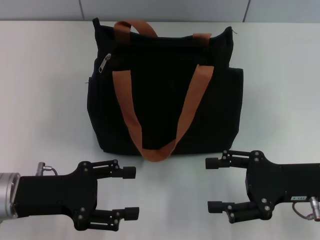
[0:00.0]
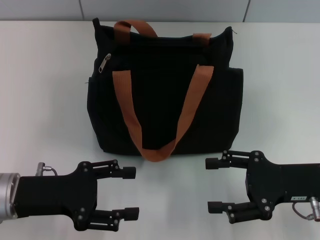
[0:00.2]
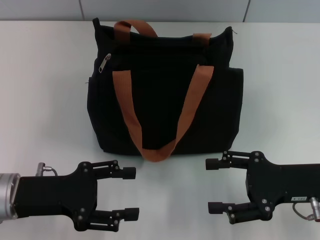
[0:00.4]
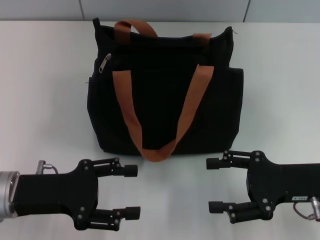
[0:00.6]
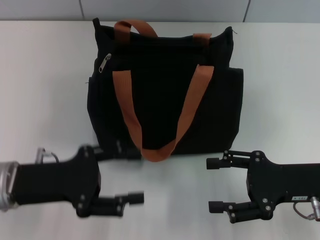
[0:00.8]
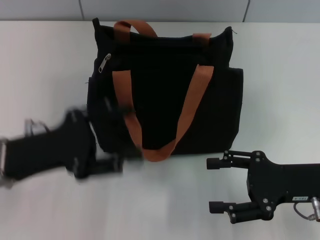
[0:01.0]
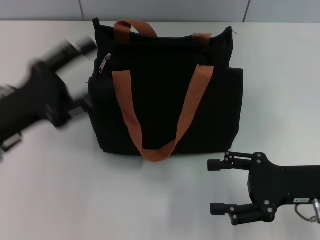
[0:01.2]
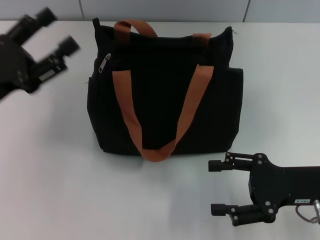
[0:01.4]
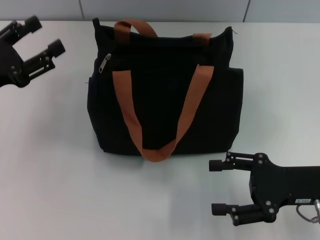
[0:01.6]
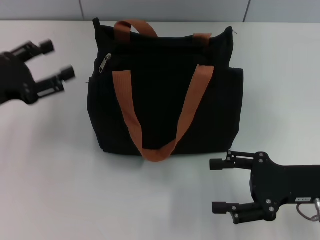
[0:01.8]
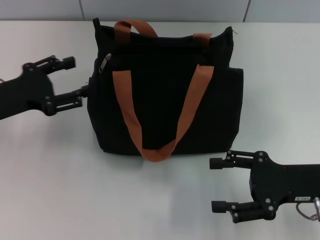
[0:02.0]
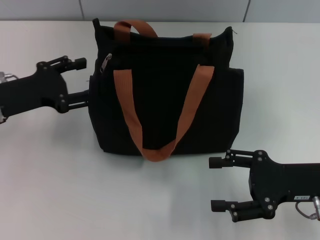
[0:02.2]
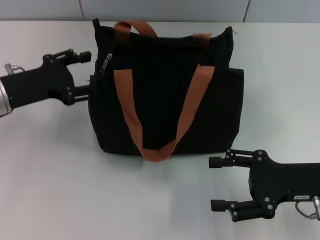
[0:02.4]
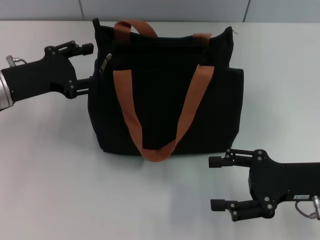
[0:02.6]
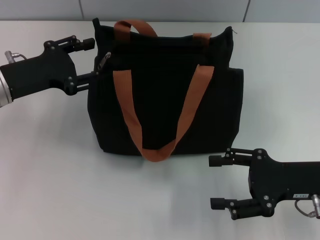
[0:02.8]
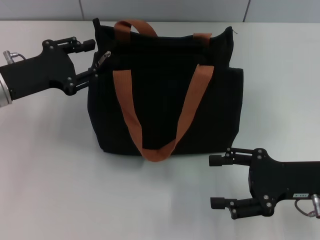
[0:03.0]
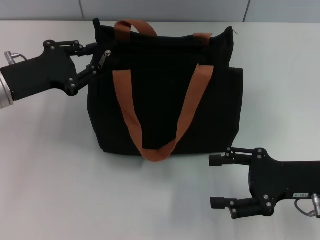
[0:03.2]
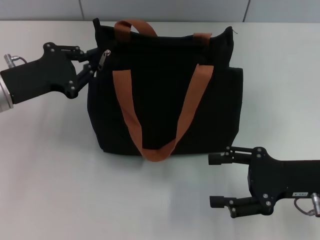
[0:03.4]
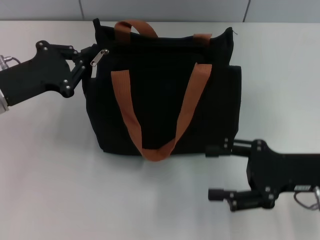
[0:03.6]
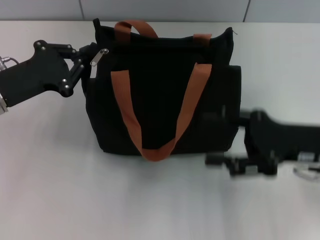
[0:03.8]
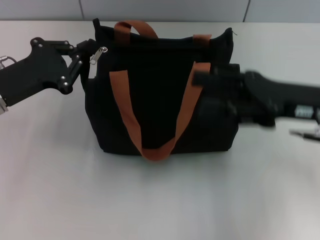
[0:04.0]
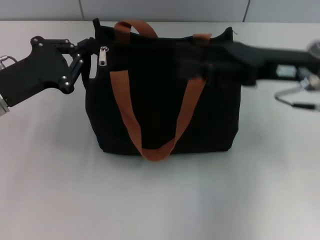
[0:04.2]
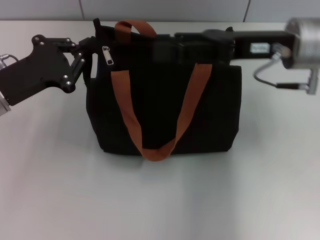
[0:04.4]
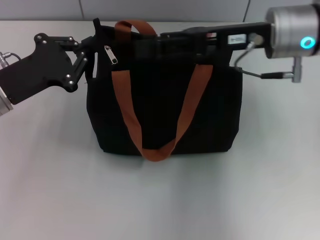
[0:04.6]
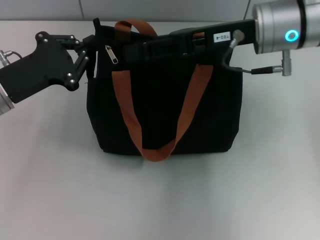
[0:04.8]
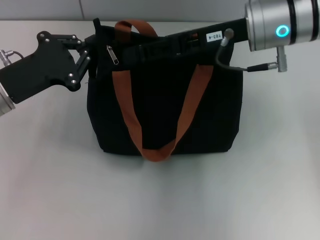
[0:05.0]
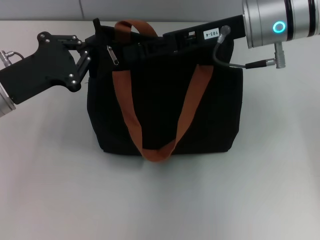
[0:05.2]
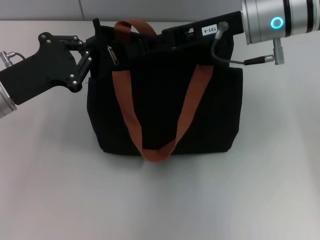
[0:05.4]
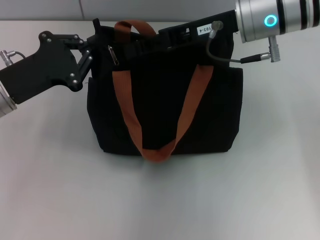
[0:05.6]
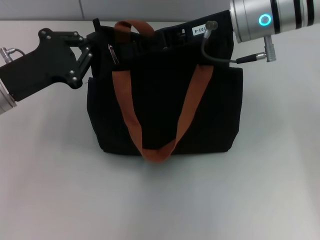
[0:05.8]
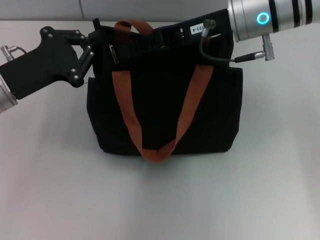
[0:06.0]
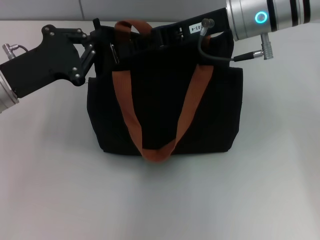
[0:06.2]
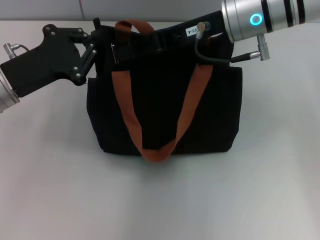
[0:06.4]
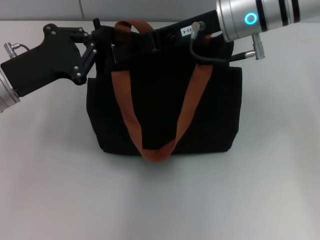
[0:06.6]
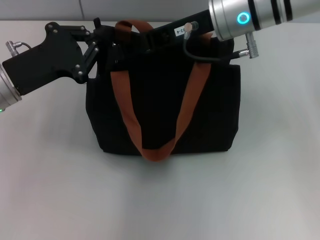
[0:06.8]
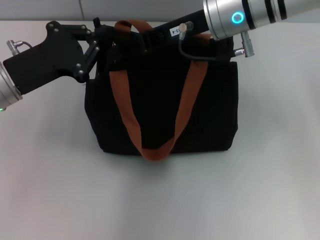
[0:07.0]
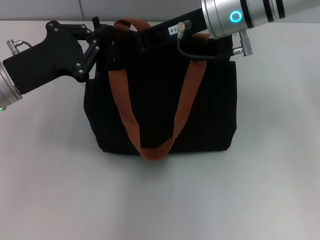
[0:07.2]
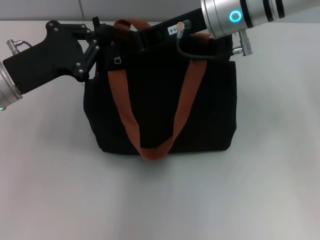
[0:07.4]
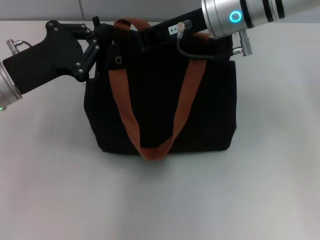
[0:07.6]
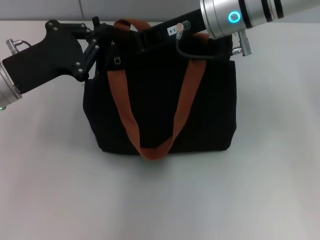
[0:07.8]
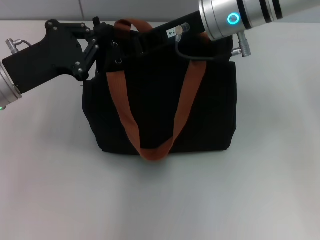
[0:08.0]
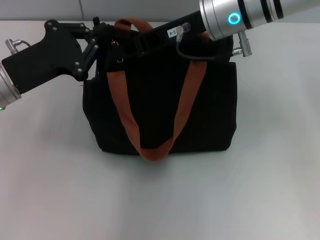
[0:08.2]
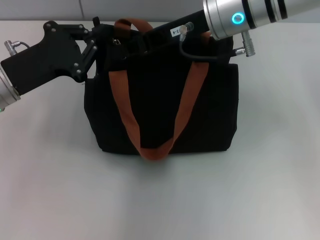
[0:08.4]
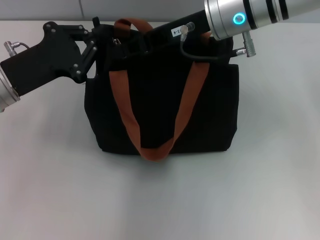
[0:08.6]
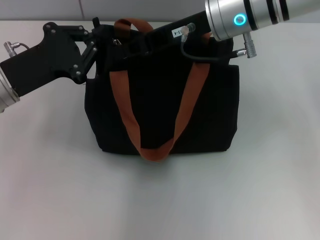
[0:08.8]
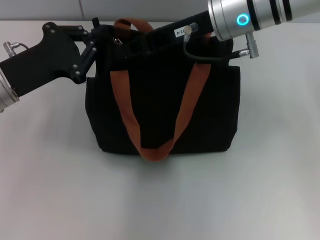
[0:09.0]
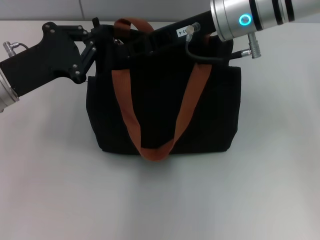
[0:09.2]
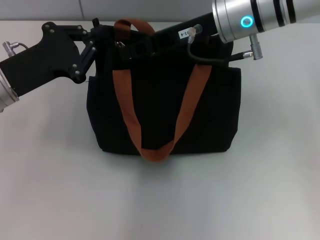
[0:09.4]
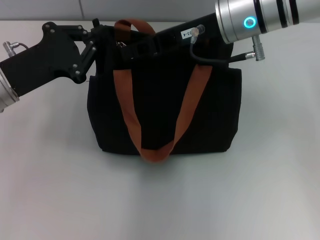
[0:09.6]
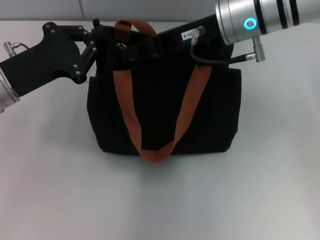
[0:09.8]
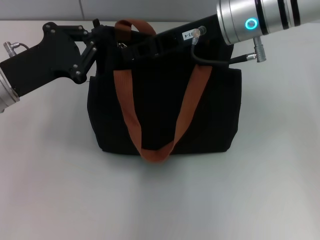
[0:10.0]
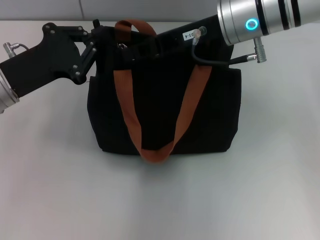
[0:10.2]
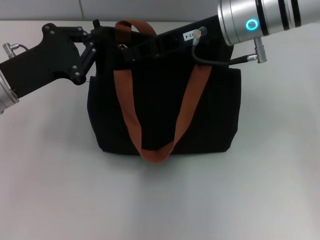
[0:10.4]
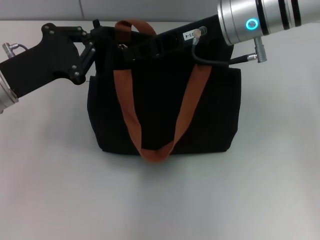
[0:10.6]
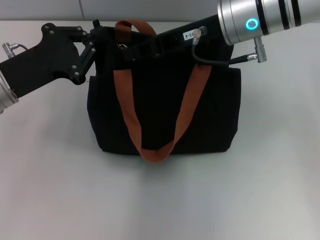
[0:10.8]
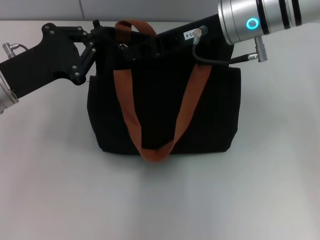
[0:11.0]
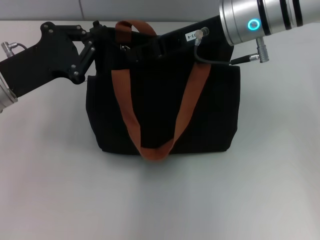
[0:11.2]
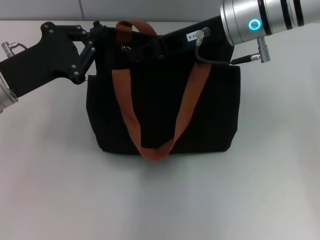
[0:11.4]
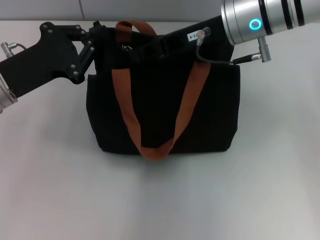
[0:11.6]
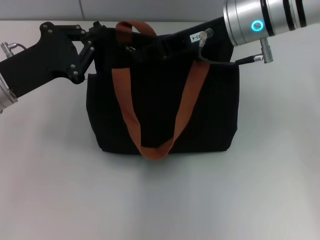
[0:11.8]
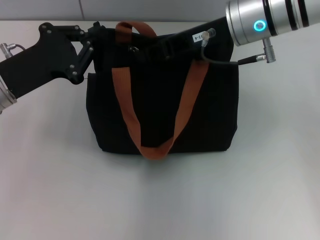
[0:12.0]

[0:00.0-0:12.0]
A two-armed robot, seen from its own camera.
0:00.0 to 0:01.6: The left gripper moves to the left and forward, approximately 10 cm.
0:01.6 to 0:03.0: The left gripper moves some 5 cm.
0:03.0 to 0:04.4: The right gripper is displaced upward, forward and to the left by some 20 cm, while the left gripper closes.
0:04.4 to 0:06.0: The right gripper moves to the left, approximately 5 cm, and closes its fingers.
0:06.0 to 0:07.6: The grippers make only small movements.
0:07.6 to 0:09.0: The two grippers keep their place.
0:09.0 to 0:10.4: Both grippers stay about where they are.
0:10.4 to 0:12.0: Both grippers stay about where they are.

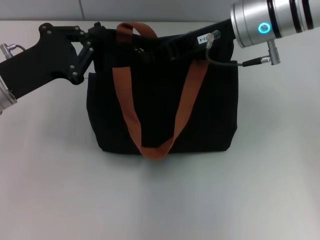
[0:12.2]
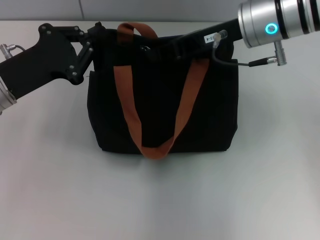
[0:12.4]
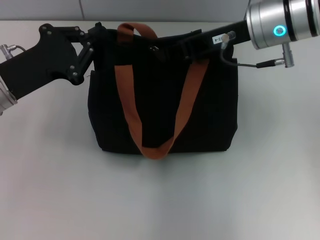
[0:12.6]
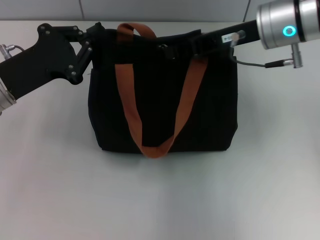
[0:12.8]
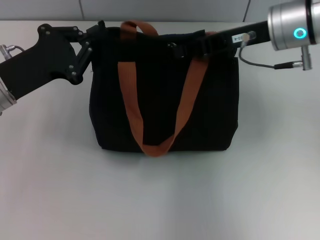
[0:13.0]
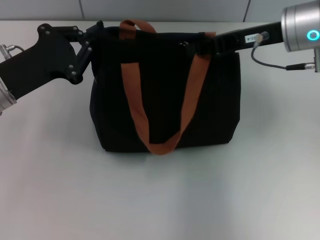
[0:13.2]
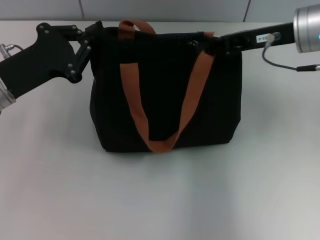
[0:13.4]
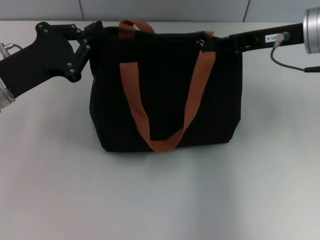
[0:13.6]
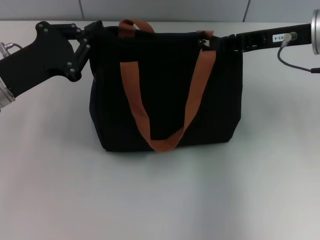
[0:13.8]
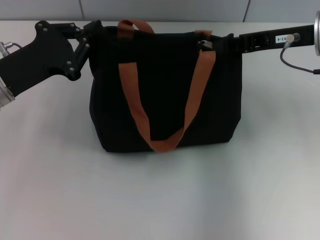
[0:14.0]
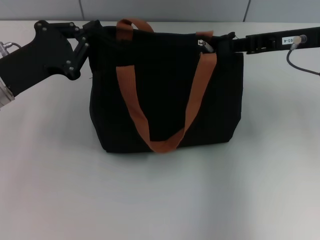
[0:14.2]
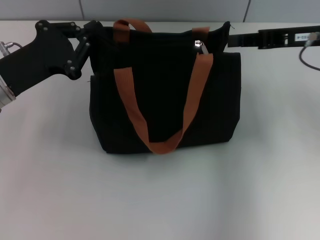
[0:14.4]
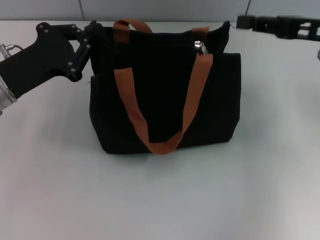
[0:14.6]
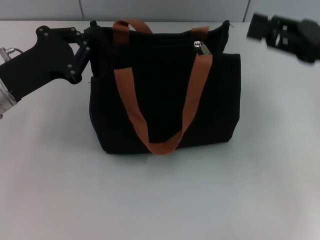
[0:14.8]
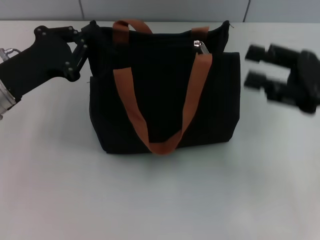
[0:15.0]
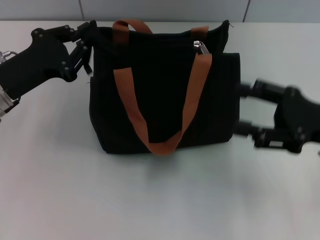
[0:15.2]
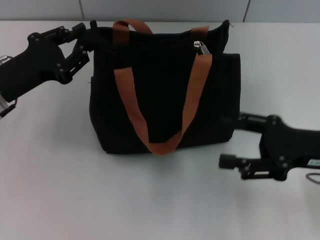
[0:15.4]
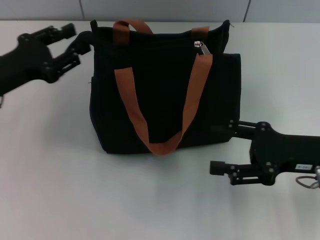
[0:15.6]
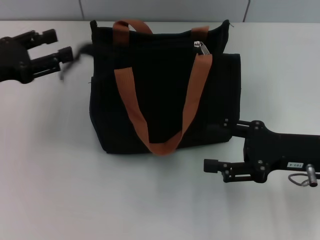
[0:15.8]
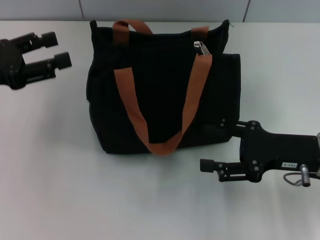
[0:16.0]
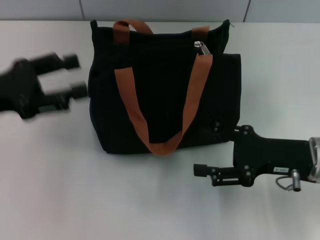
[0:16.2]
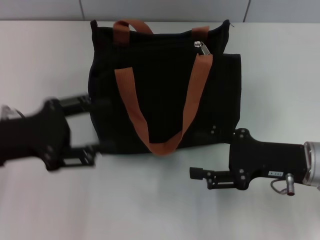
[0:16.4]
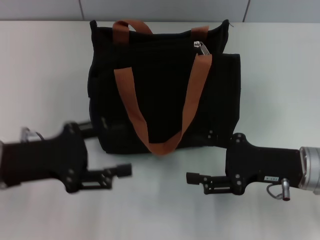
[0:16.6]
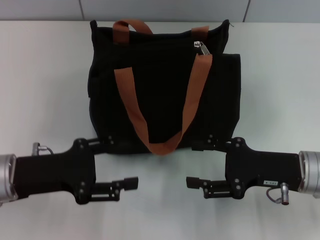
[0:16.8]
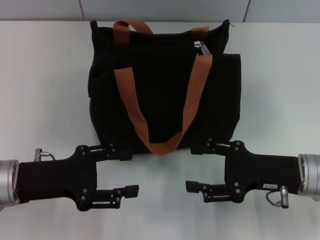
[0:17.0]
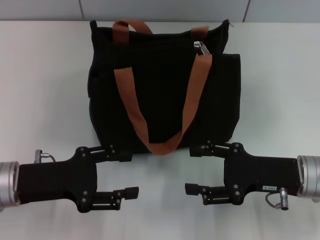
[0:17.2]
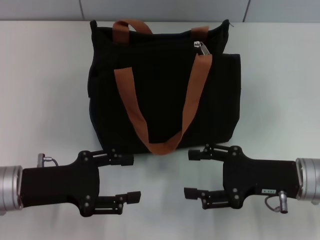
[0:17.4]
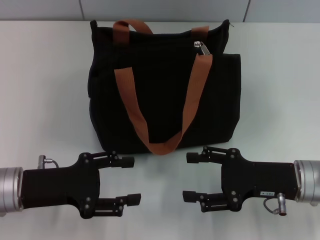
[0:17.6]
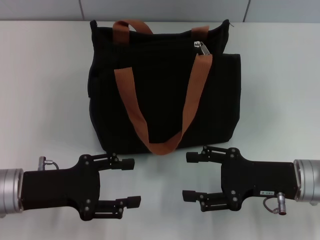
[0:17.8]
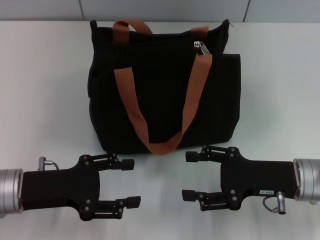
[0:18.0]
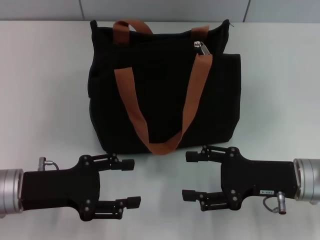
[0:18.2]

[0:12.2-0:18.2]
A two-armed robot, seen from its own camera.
Step, 0:14.4 to 0:15.8: Grab the zipper with your left hand.
0:12.2 to 0:13.8: The right gripper moves to the right, about 10 cm.
0:13.8 to 0:15.2: The right gripper heads backward and downward, covering some 15 cm, and opens up.
0:15.2 to 0:16.6: The right gripper moves downward, approximately 5 cm. Meanwhile the left gripper goes roughly 5 cm backward, and opens its fingers.
0:16.6 to 0:18.2: The grippers stay close to where they were, moving slightly.

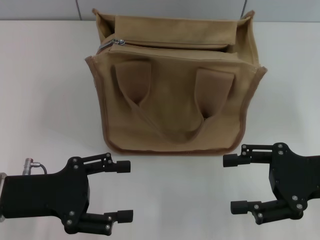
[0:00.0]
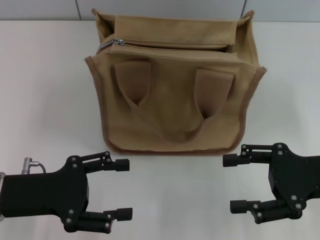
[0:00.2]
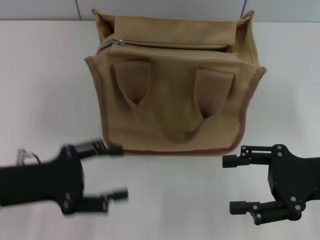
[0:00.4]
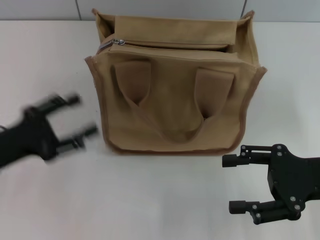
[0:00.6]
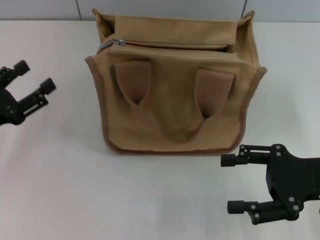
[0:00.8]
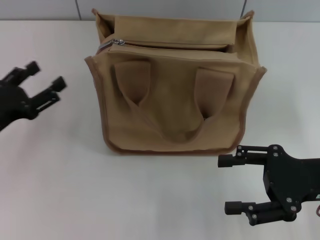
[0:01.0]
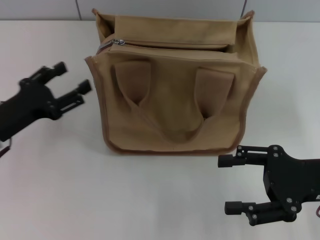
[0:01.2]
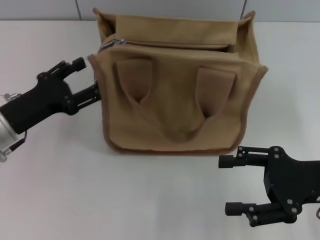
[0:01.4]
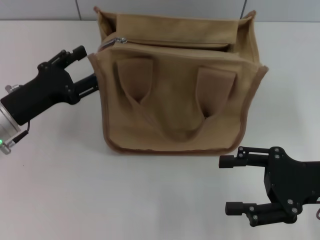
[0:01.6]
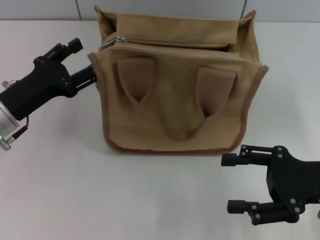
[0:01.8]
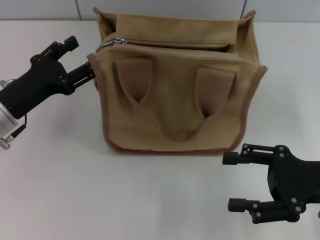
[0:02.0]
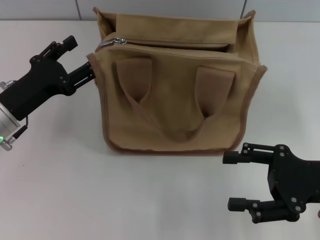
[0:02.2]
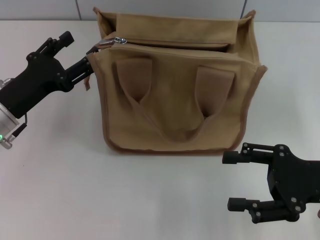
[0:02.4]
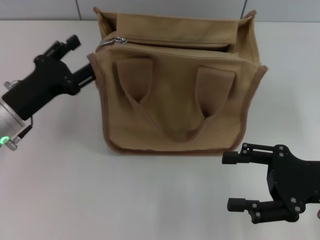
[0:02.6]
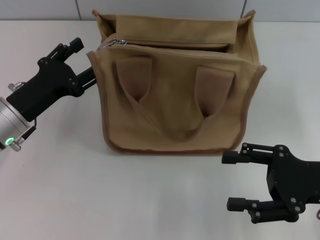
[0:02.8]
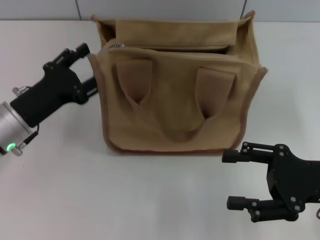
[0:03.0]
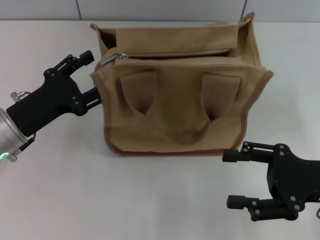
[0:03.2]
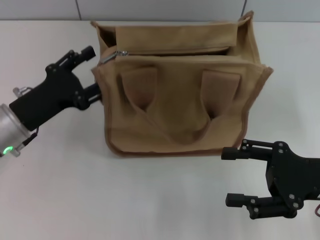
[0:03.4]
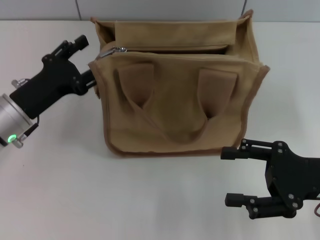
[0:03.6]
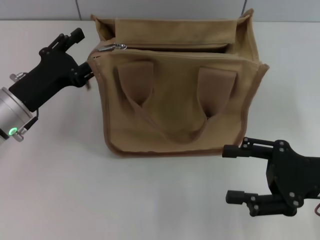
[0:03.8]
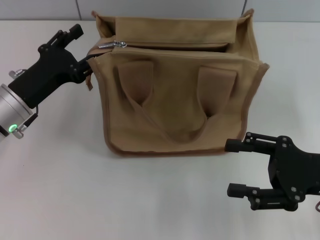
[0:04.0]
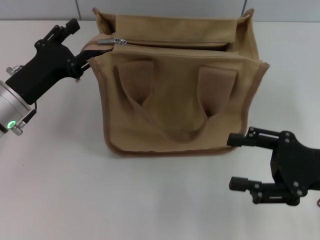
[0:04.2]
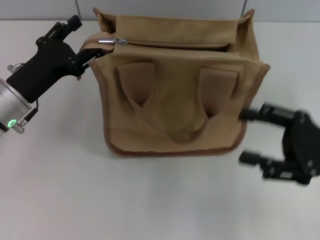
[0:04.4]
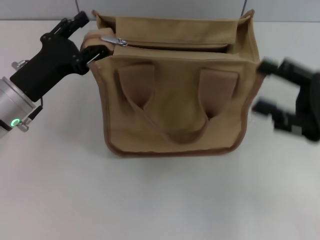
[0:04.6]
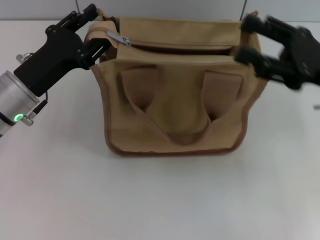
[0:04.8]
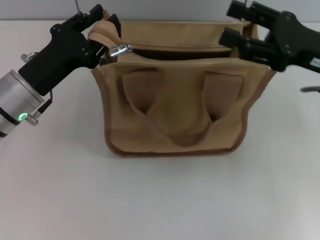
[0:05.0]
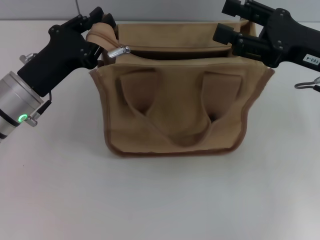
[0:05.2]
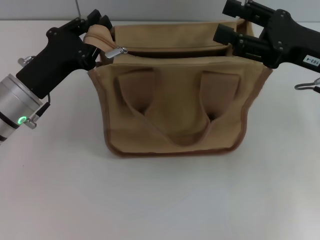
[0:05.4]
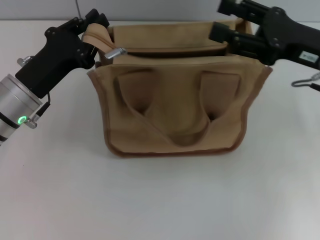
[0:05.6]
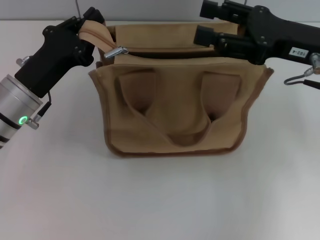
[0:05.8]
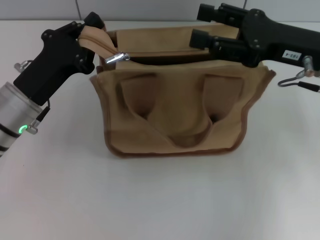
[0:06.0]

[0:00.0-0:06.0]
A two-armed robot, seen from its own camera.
0:00.0 to 0:01.6: The left gripper moves forward, about 10 cm.
0:01.6 to 0:04.4: The grippers stay close to where they were, moving slightly.
0:04.4 to 0:06.0: The right gripper moves forward, upward and to the left, approximately 15 cm. The left gripper closes.
